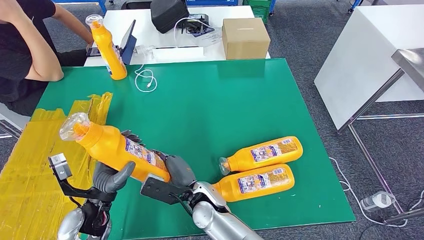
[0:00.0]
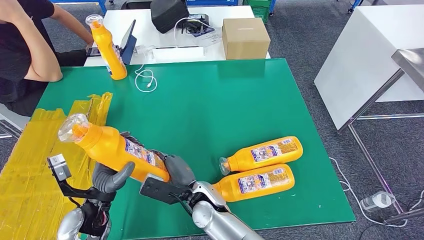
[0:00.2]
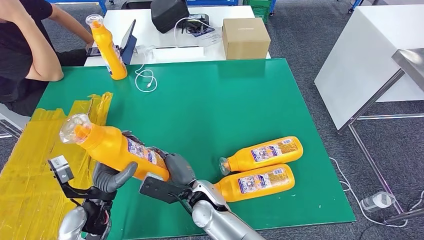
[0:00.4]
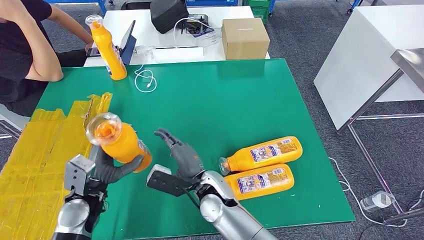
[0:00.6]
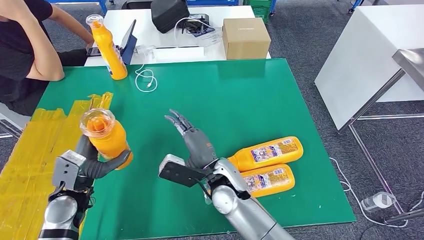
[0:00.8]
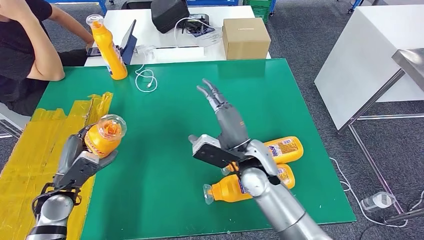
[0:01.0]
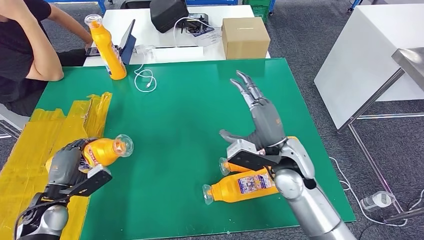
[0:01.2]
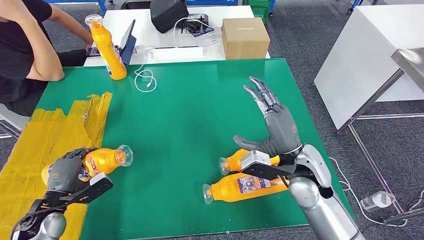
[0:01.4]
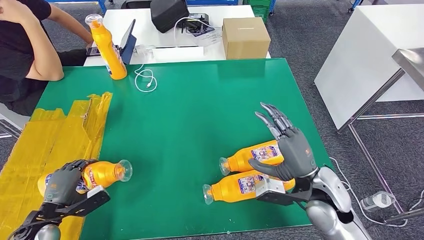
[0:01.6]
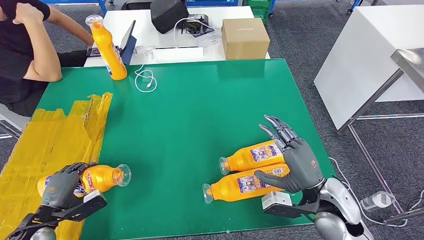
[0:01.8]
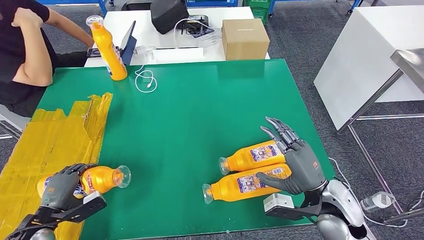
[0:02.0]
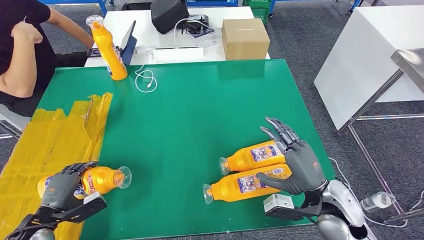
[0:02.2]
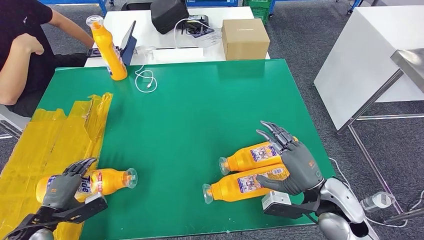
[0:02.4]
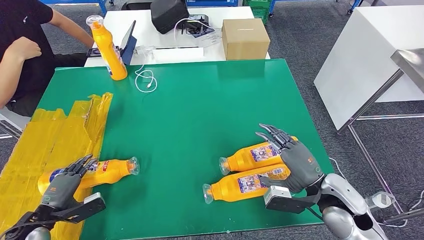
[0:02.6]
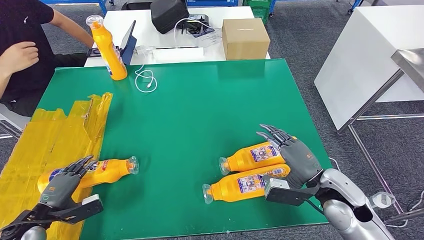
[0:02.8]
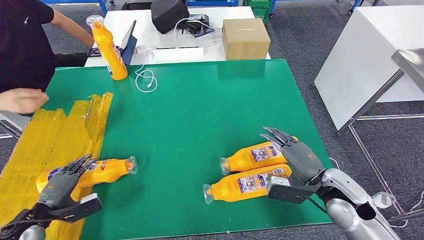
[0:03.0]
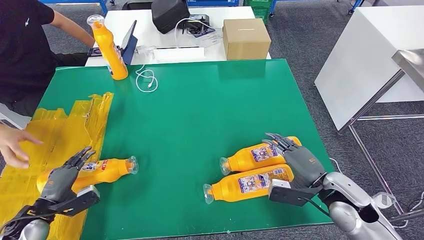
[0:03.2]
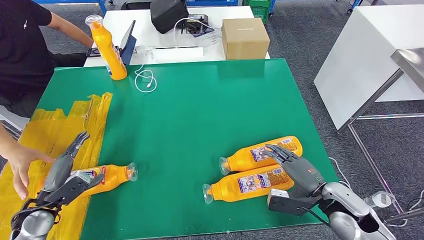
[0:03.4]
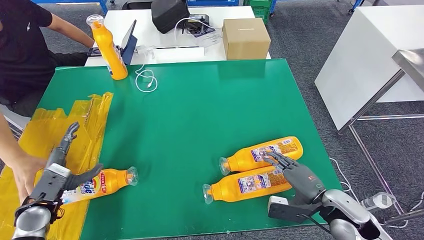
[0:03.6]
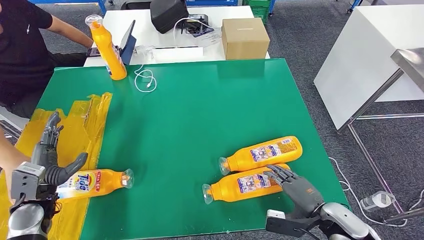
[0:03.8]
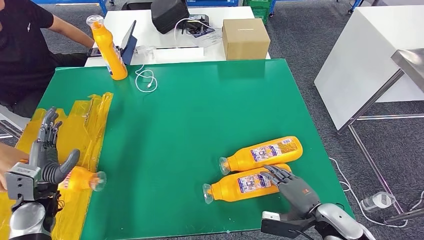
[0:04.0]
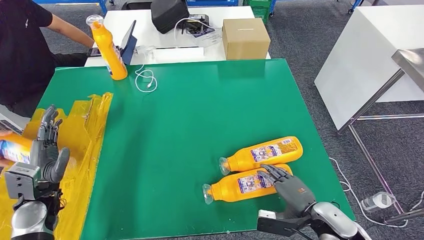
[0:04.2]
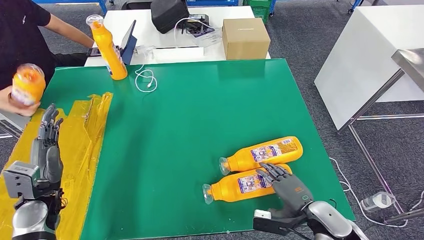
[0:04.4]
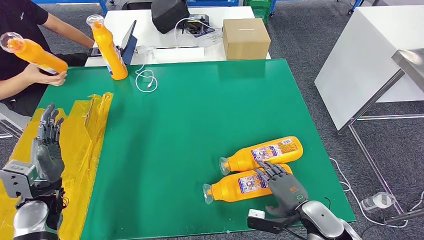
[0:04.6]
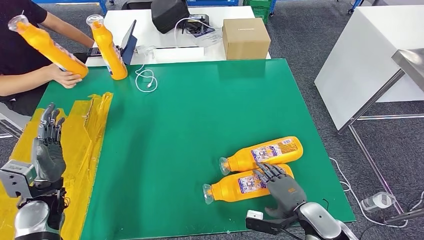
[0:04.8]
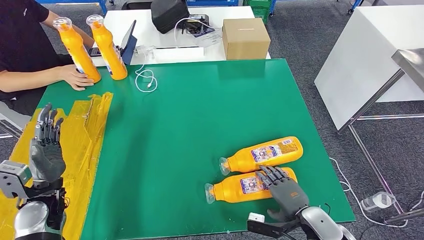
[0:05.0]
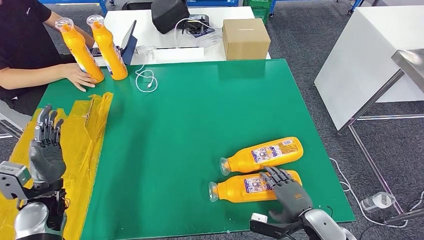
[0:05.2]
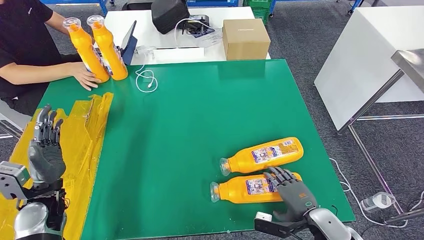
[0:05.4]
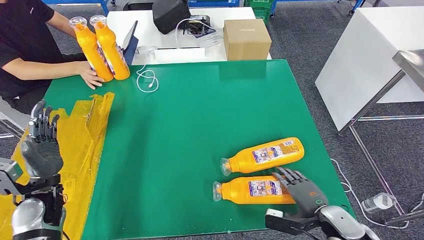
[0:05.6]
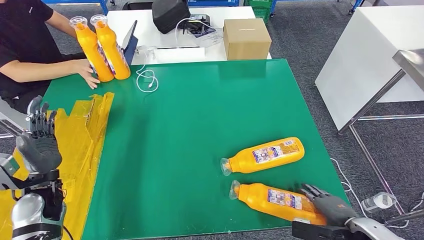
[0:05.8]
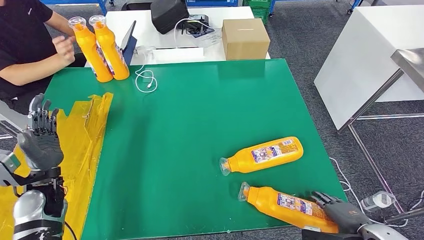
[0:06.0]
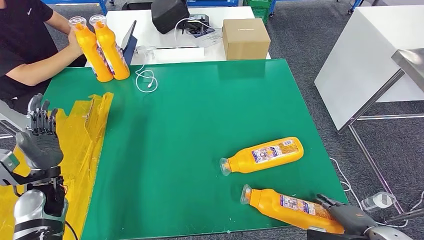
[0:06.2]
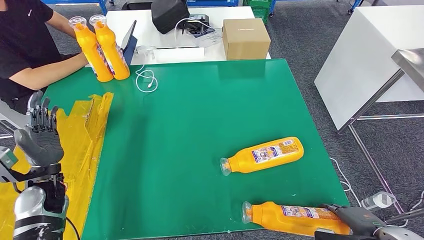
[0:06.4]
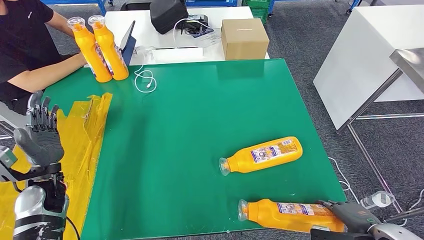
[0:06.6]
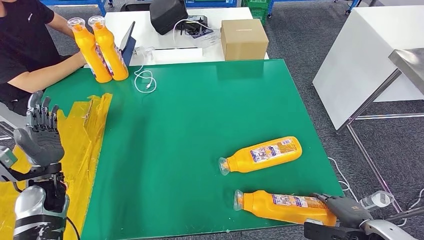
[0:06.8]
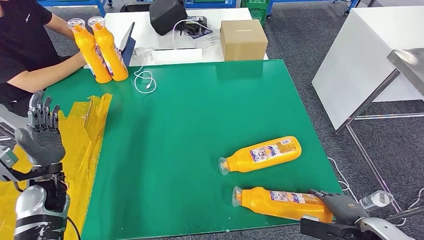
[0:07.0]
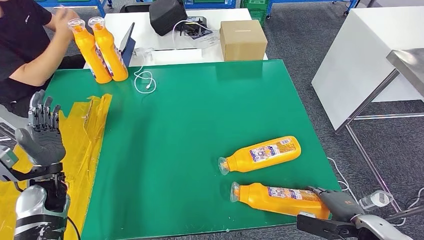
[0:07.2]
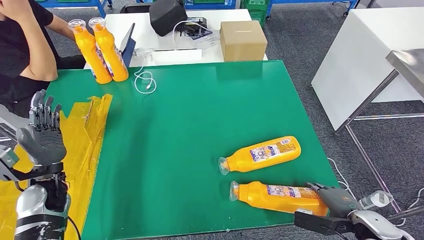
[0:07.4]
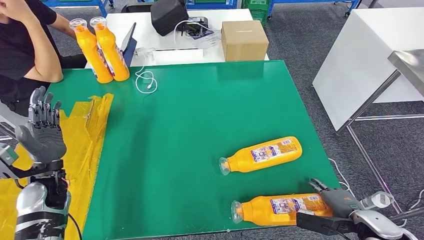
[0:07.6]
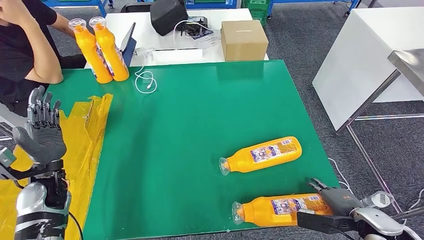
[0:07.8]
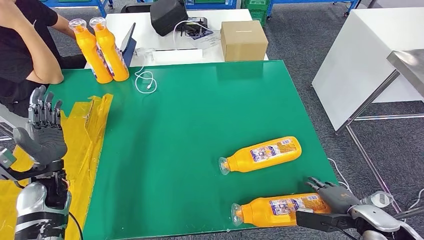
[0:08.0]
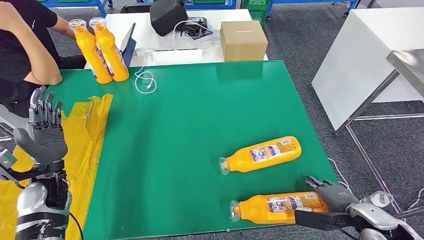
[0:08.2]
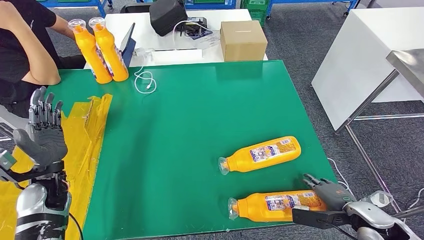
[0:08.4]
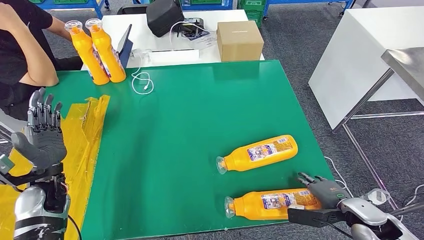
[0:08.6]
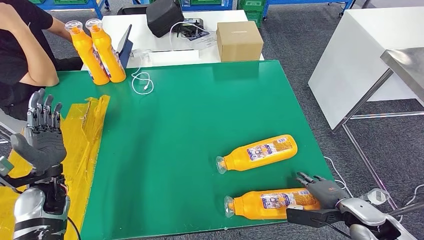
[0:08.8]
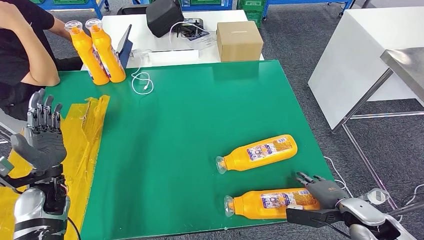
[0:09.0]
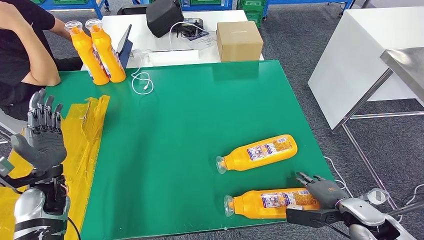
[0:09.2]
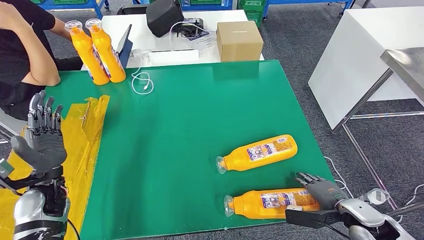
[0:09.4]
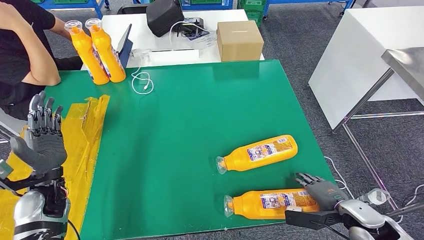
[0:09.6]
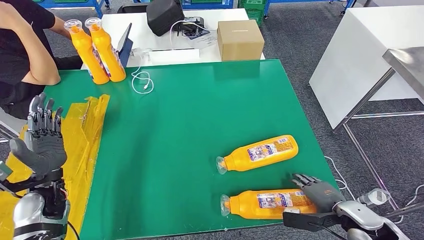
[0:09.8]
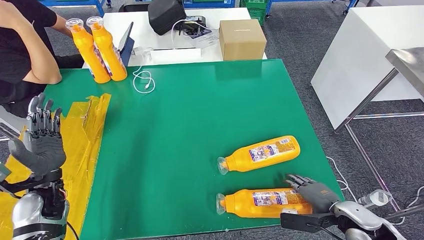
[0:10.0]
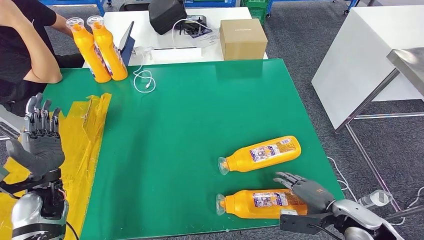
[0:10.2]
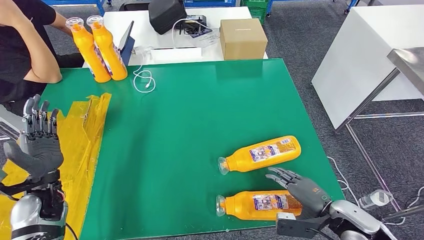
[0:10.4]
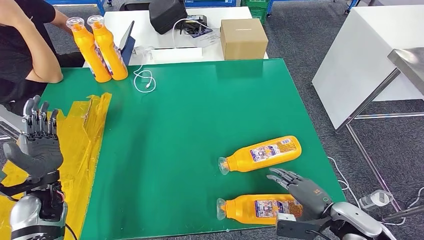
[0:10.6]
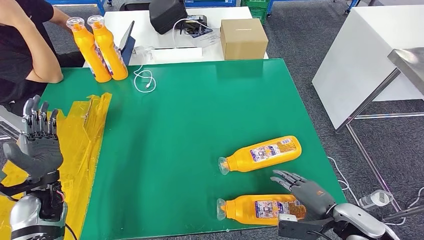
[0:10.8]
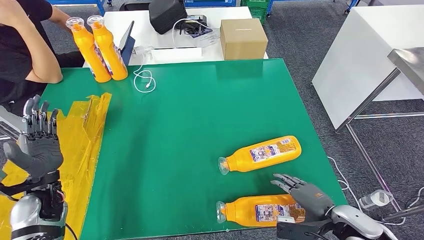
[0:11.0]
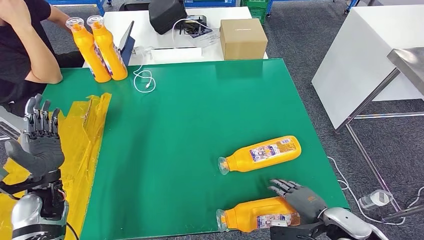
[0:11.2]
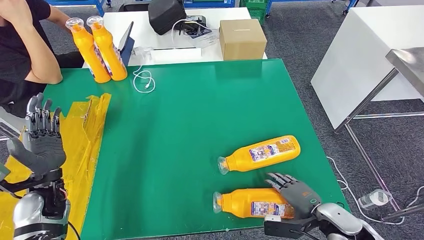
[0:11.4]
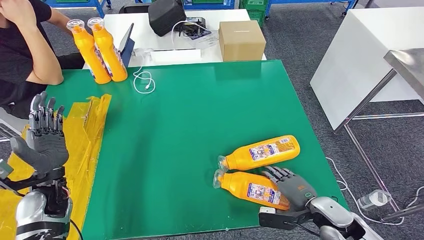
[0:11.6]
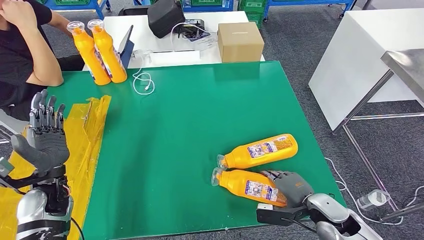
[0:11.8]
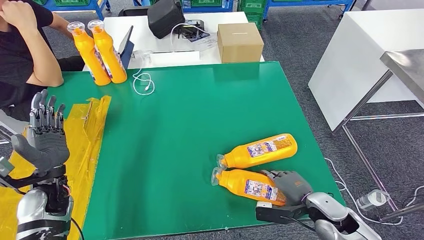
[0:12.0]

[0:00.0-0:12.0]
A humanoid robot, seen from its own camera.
Step, 0:00.0 to 0:03.8: Flip the bottle to face forward.
0:01.6 to 0:03.0: The right hand goes about 5 cm to the right.
0:03.0 to 0:04.4: The right hand heads downward and backward, covering about 10 cm, while the left hand shifts roughly 10 cm upward and to the right.
0:04.4 to 0:06.0: The right hand travels to the right and backward by approximately 15 cm.
0:06.0 to 0:07.6: The hands stay close to where they were, moving slightly.

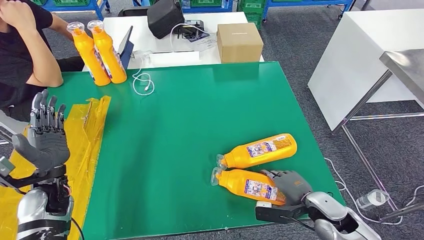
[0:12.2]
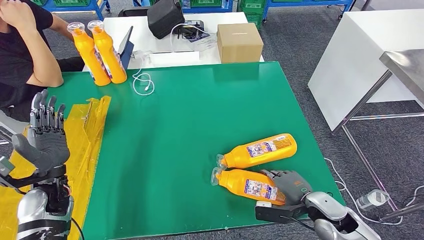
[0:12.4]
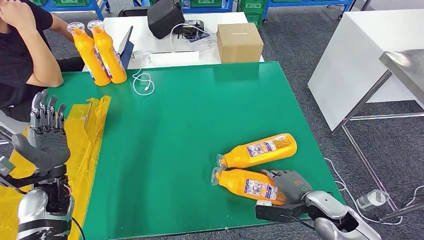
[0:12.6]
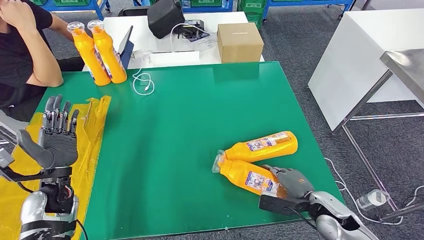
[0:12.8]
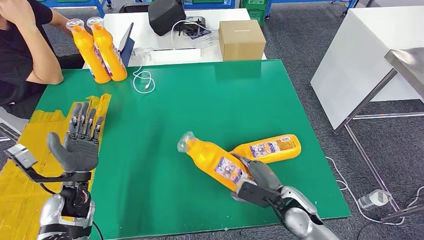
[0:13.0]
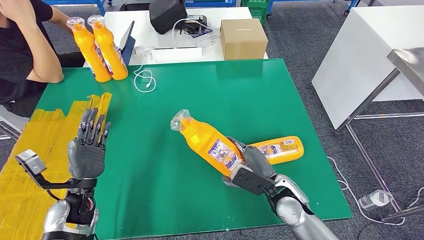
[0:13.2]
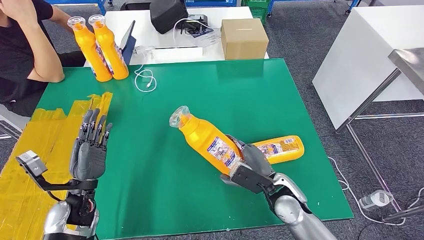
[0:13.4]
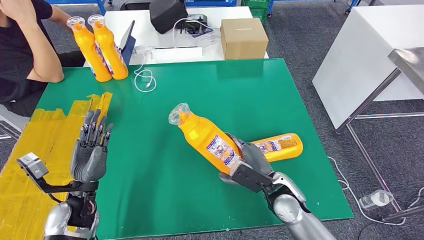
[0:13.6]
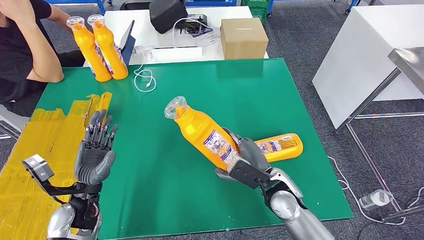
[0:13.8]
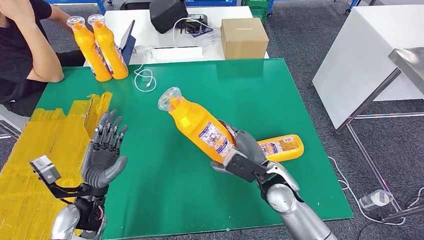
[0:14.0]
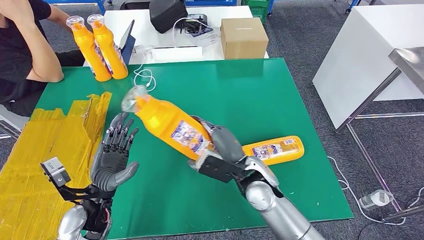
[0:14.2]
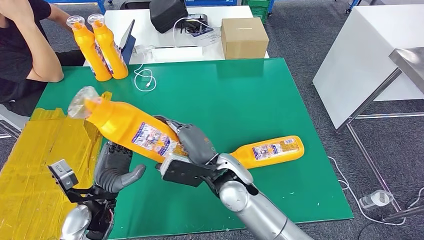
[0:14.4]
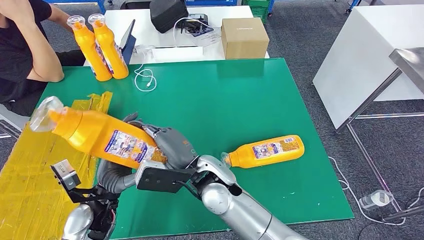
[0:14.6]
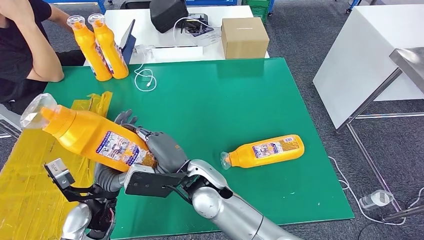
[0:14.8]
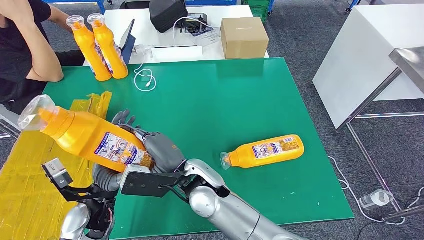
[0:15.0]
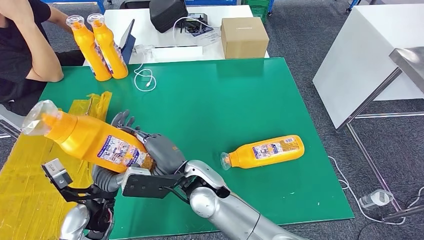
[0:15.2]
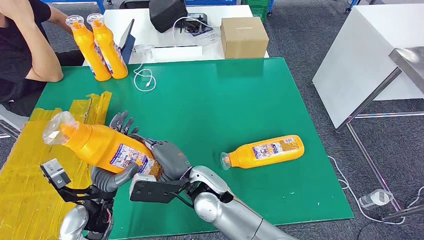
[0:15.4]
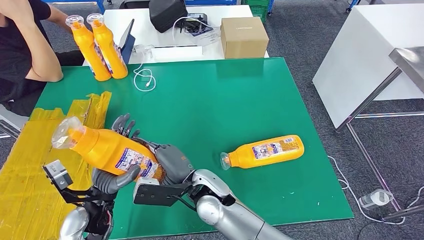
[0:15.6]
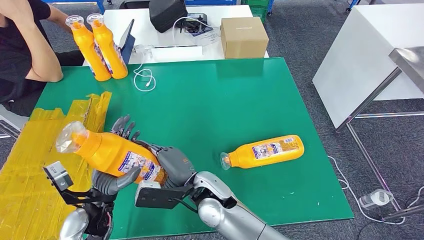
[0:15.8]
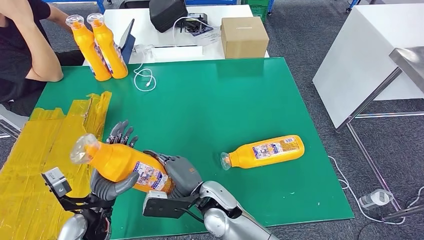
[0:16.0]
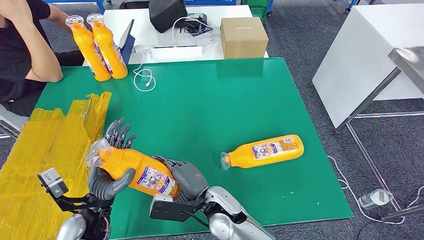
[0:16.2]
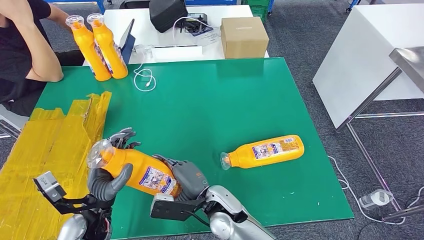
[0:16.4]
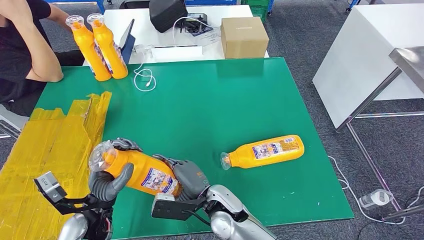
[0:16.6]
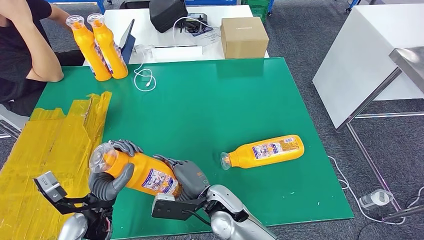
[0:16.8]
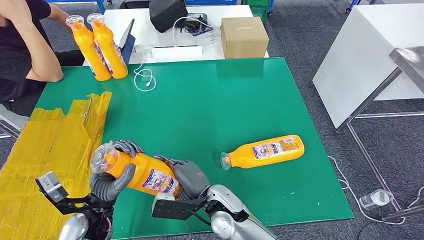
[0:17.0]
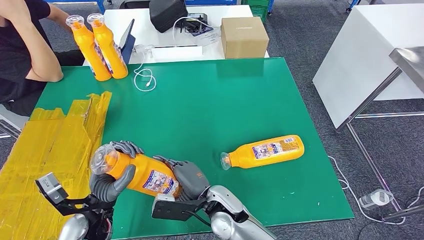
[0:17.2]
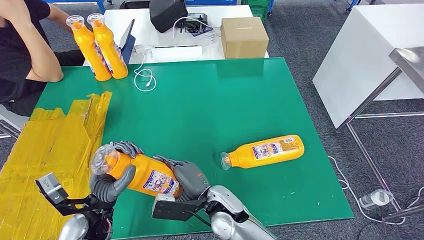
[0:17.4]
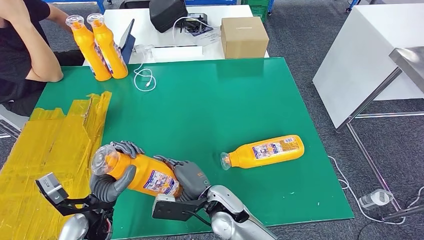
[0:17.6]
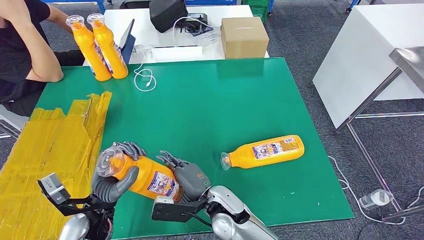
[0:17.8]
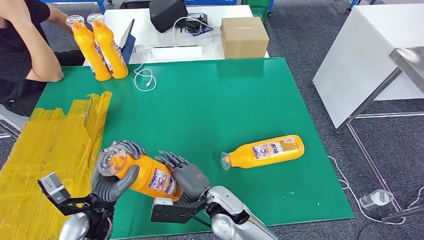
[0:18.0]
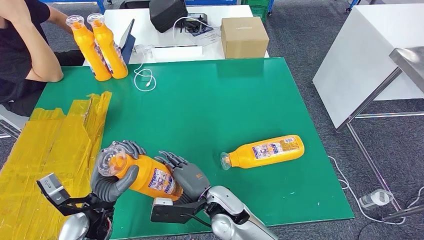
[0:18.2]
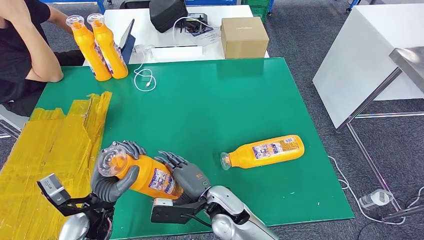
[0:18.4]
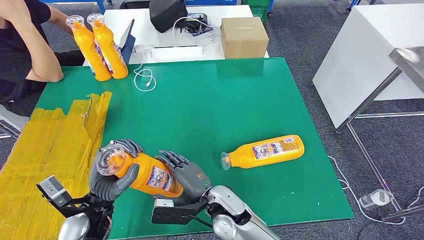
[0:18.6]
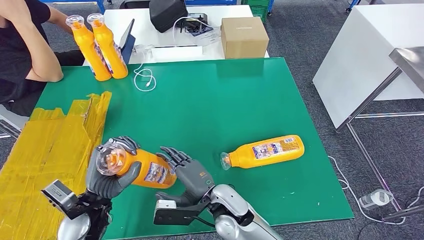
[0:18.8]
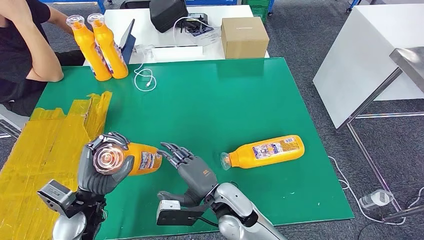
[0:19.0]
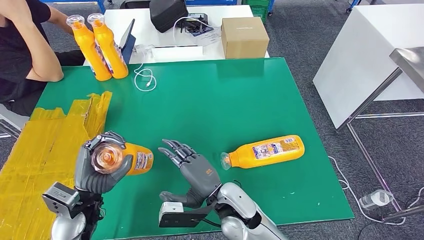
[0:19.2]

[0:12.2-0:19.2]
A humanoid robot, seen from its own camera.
0:15.0 to 0:16.4: The right hand goes approximately 10 cm downward.
0:16.4 to 0:17.8: The two hands keep their place.
